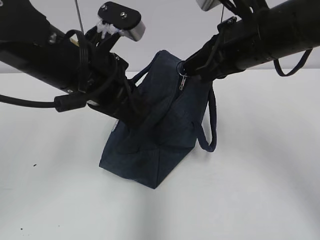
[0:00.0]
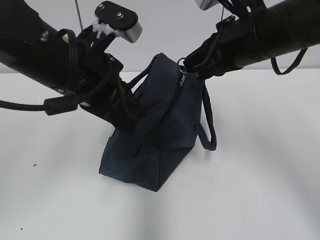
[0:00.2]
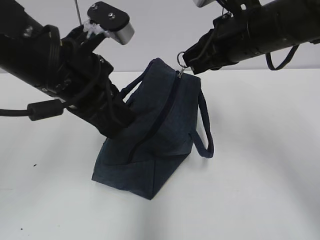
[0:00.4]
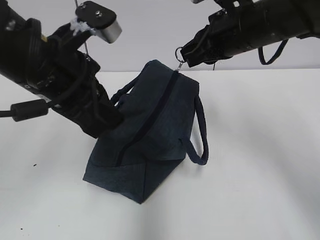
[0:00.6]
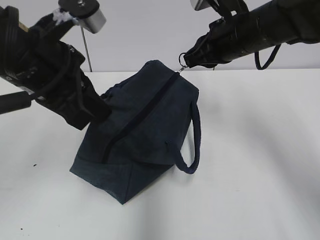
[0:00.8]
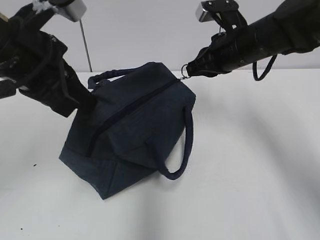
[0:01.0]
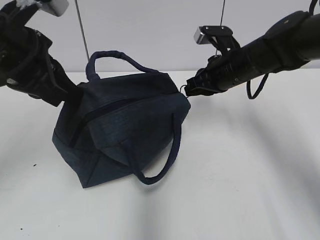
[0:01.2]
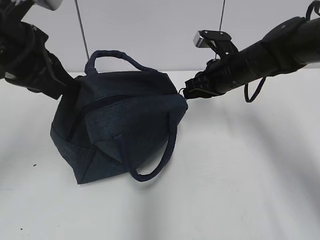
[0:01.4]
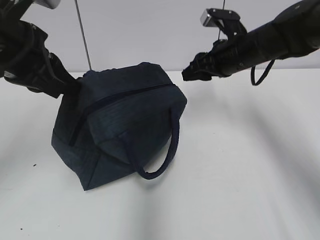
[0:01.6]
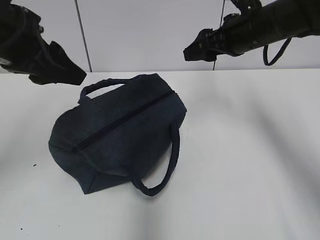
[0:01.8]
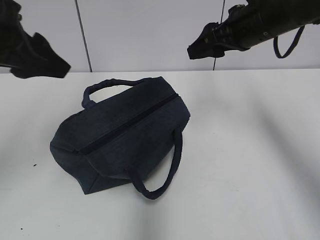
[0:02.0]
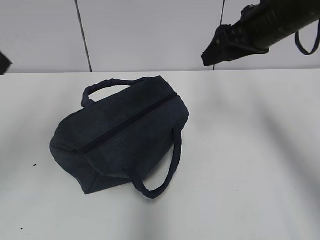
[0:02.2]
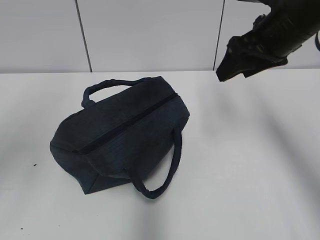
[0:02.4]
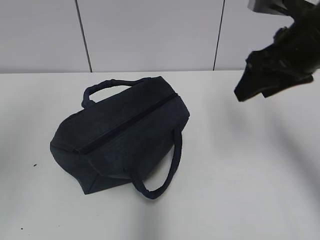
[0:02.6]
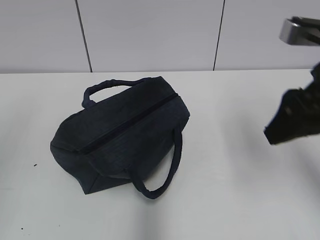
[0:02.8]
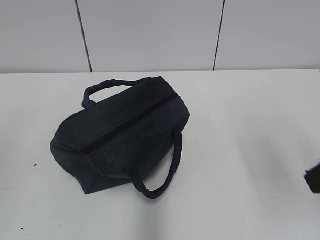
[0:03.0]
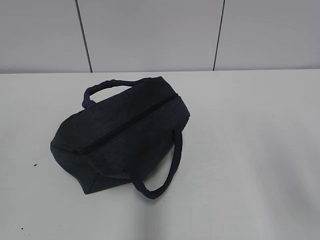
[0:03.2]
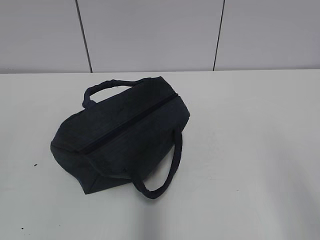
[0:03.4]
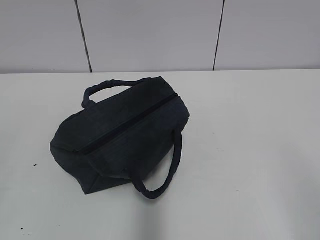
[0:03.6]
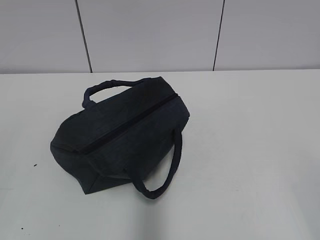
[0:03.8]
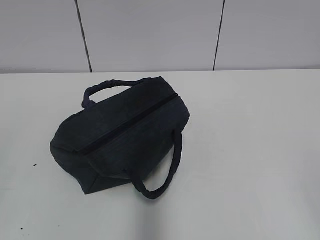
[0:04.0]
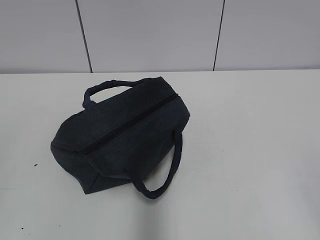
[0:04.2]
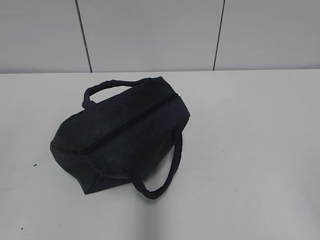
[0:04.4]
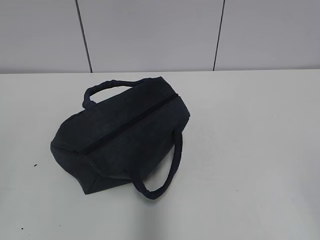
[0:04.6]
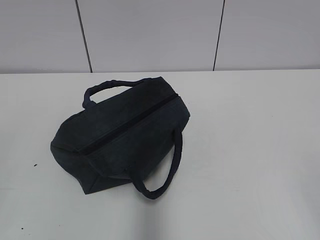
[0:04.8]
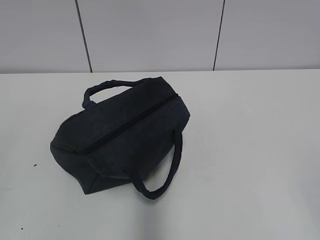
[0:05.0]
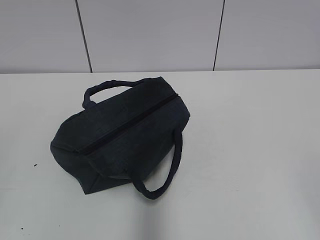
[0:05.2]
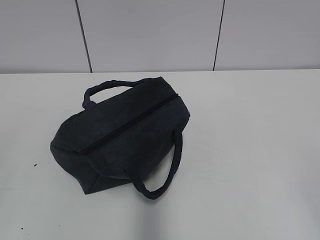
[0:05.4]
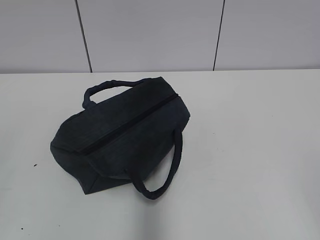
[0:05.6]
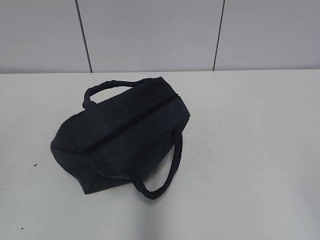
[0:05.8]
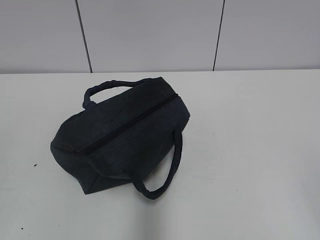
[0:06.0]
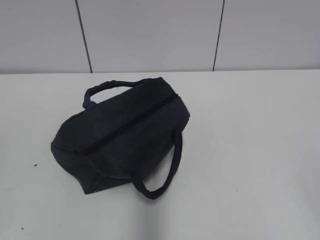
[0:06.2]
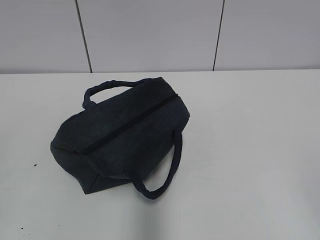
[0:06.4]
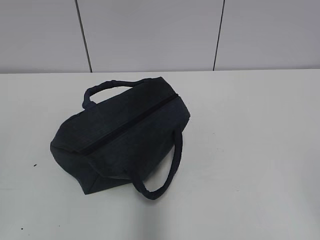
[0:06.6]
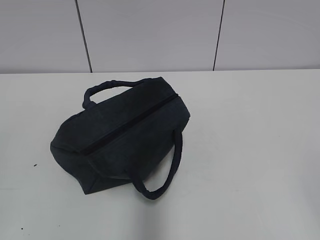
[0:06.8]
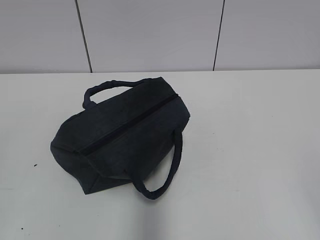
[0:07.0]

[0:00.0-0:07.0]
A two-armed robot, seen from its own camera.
0:00.0 to 0:01.4: The right gripper travels downward and forward by some 15 cm; the left gripper shifts approximately 10 cm to the left.
0:01.4 to 0:02.8: The right gripper goes some 20 cm backward and upward, and opens up. Meanwhile the left gripper goes approximately 20 cm backward and to the left, and opens its fingers.
0:02.8 to 0:04.2: The right gripper heads backward, covering roughly 25 cm.
0:04.2 to 0:05.6: The two grippers keep their place.

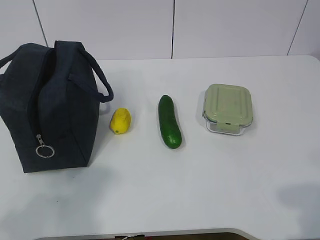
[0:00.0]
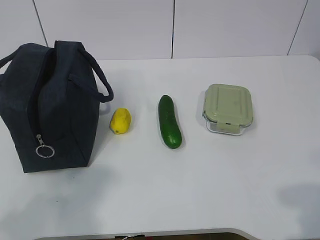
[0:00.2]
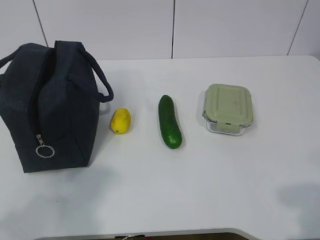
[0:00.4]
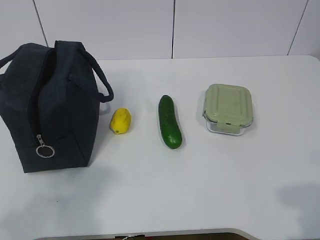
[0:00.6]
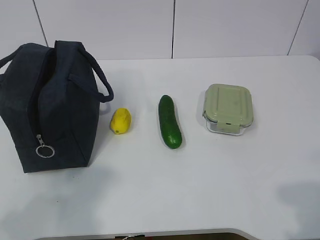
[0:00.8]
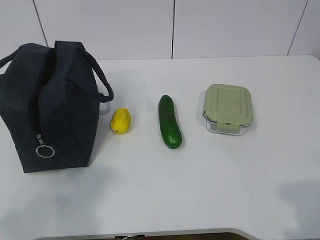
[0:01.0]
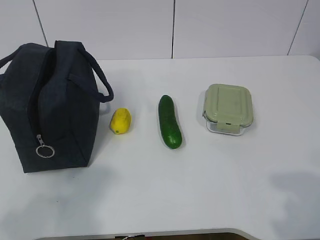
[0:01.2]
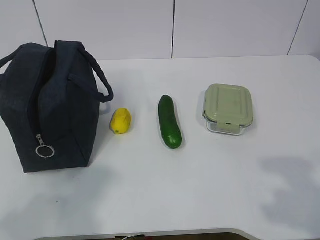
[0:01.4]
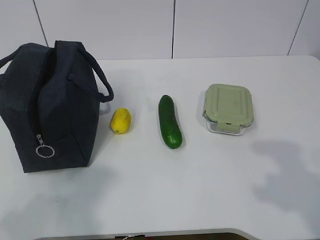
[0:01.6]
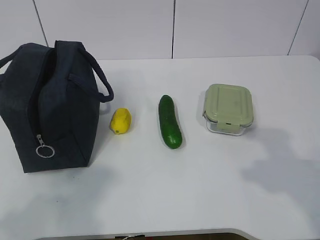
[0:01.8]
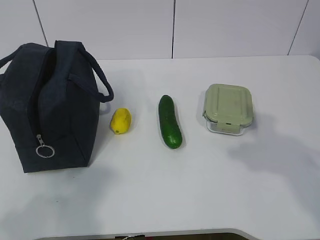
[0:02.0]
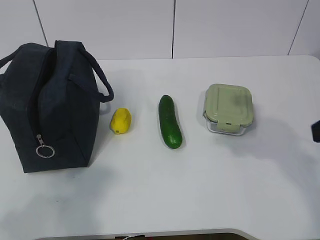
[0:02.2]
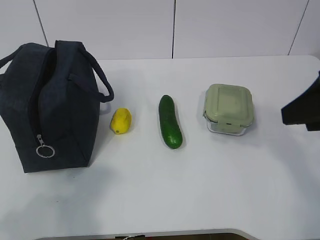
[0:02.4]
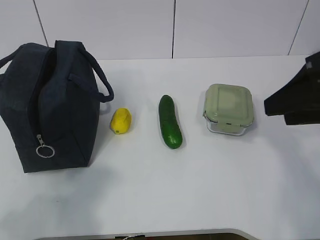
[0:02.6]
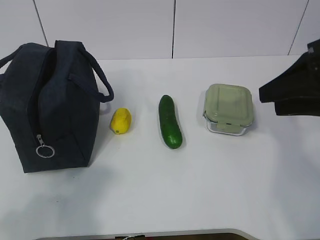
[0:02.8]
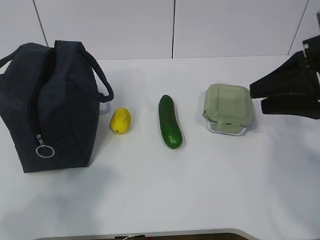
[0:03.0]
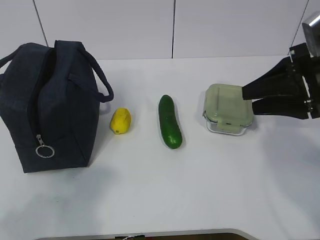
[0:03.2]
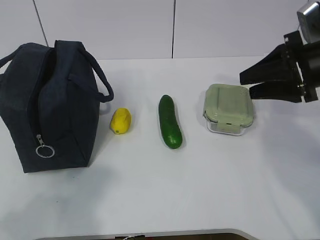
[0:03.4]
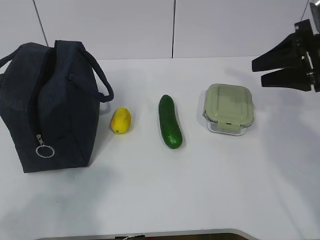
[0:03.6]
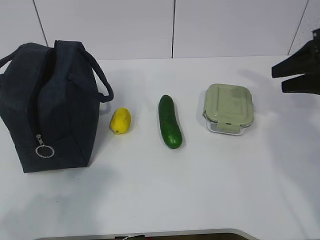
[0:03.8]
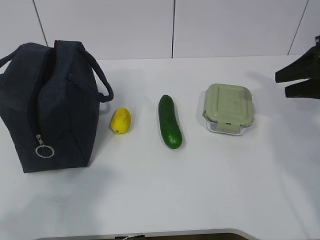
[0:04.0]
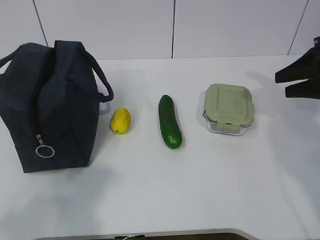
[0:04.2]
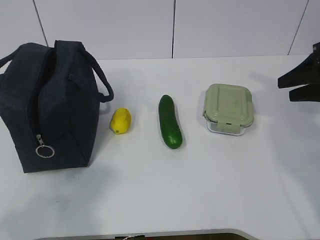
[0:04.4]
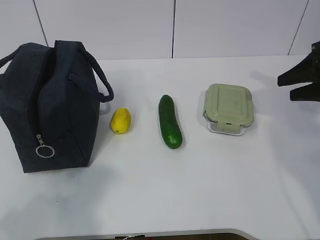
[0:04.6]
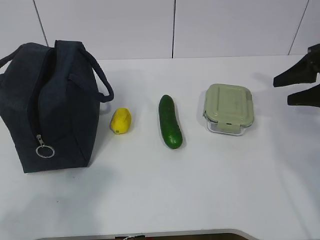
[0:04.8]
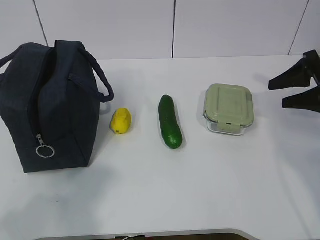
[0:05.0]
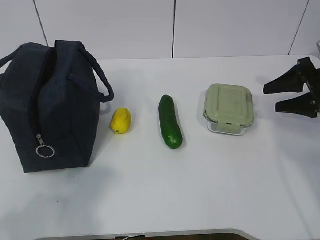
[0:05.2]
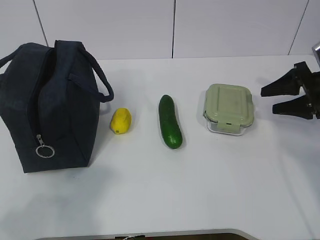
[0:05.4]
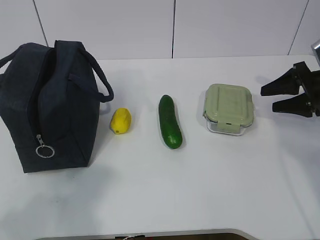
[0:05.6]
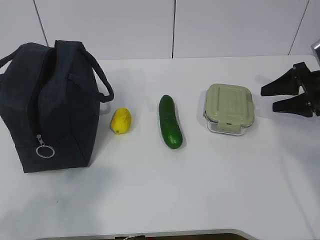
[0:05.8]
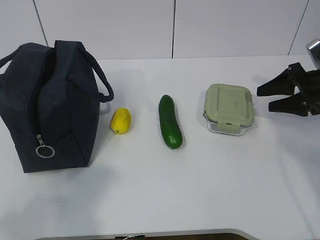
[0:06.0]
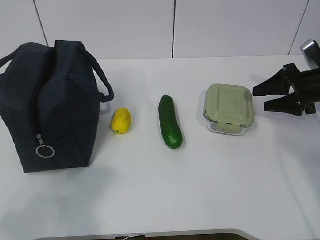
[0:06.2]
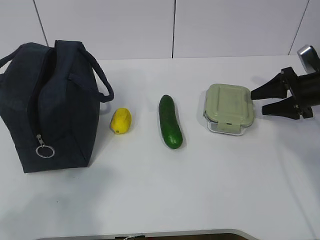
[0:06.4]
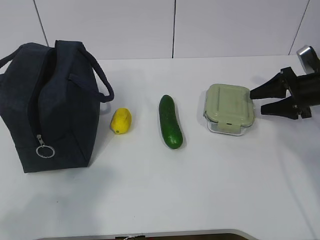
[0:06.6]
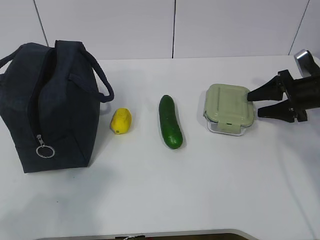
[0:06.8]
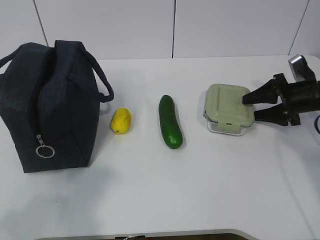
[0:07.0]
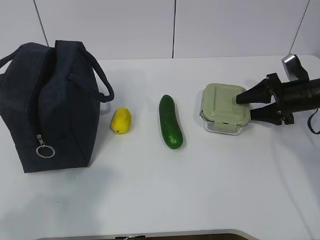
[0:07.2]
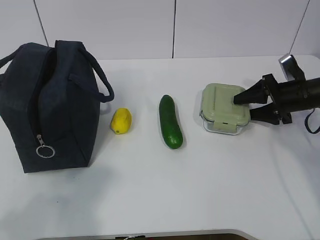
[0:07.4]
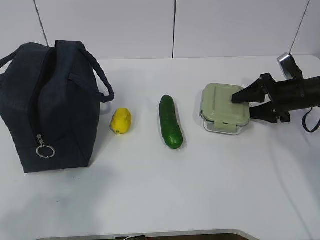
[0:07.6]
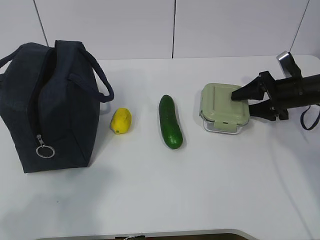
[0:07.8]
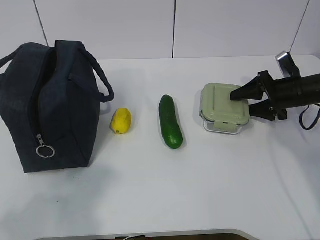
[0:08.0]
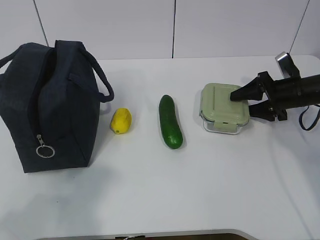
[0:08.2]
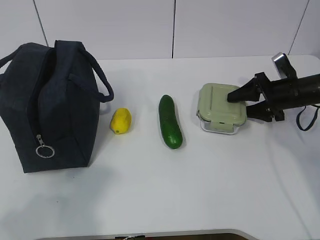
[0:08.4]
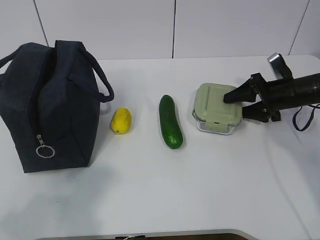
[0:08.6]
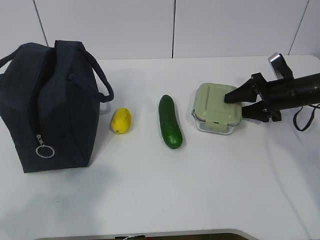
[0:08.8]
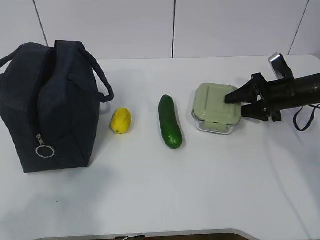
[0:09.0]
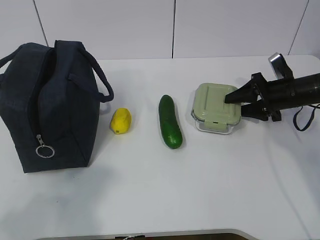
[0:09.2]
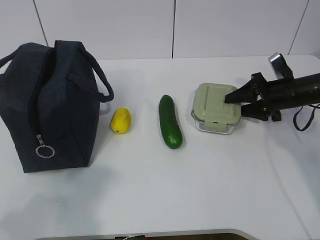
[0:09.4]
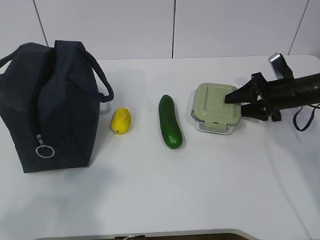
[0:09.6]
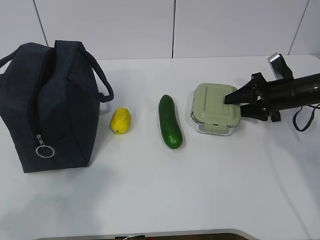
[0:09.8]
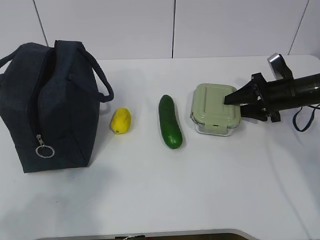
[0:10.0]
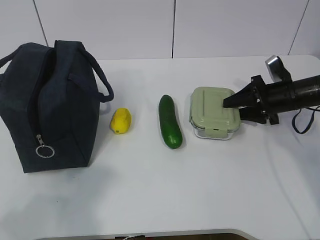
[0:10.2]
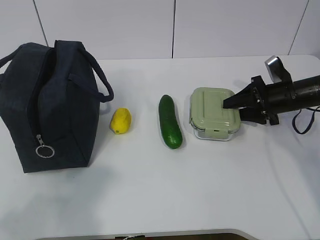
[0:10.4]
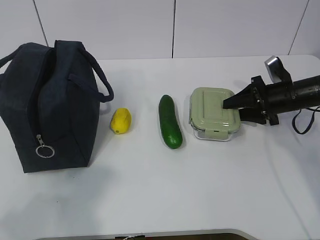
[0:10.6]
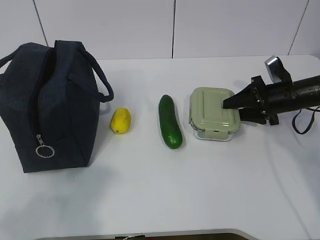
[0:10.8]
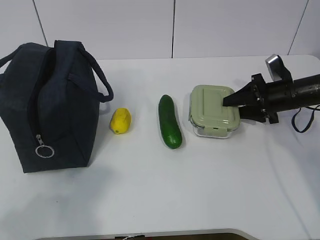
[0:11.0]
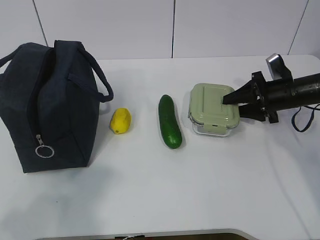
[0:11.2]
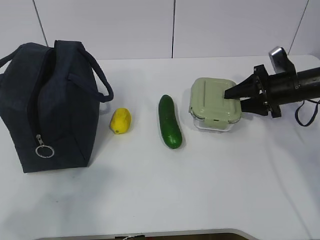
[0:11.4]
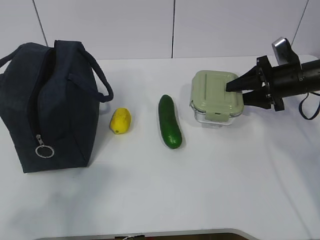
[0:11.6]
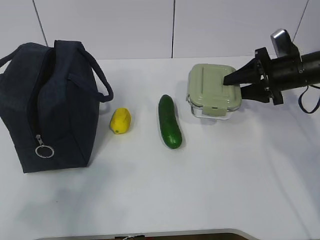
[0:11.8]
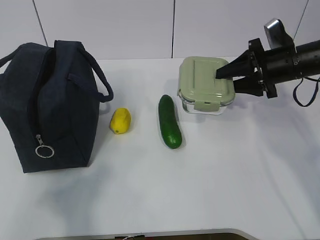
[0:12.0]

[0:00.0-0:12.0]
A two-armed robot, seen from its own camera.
Step, 0:00.0 to 0:08.2: Grab the lunch box with your right hand.
0:01.6 to 0:03.0: The right gripper goes roughly 20 cm forward.
0:03.0 to 0:04.4: The right gripper goes approximately 10 cm to the right and forward.
0:04.4 to 0:06.0: The right gripper shifts about 5 cm downward.
0:06.0 to 0:07.6: The right gripper ends up approximately 5 cm from where it was.
0:07.6 to 0:10.4: There are only small adjustments of the grippers.
0:10.4 to 0:12.0: The right gripper moves upward, about 10 cm.

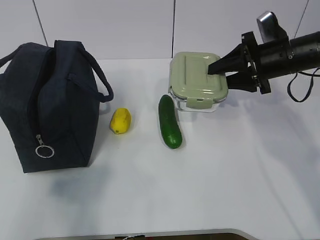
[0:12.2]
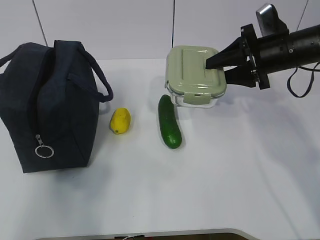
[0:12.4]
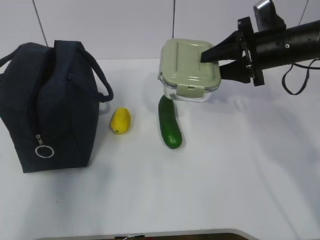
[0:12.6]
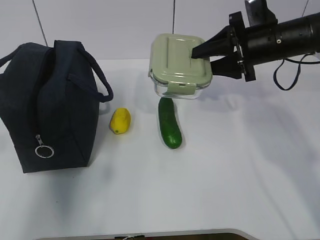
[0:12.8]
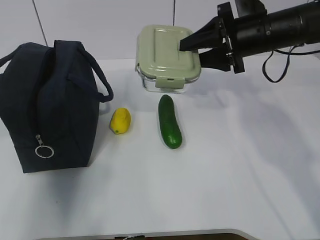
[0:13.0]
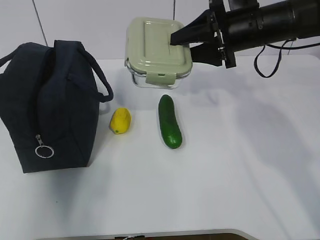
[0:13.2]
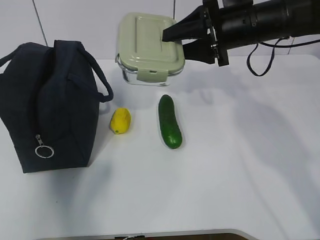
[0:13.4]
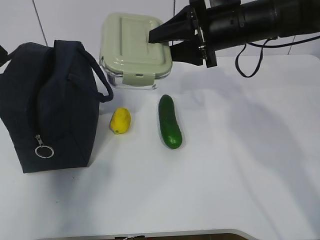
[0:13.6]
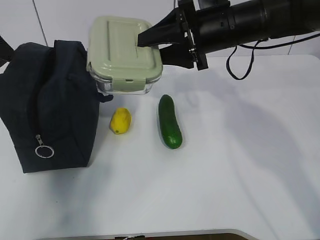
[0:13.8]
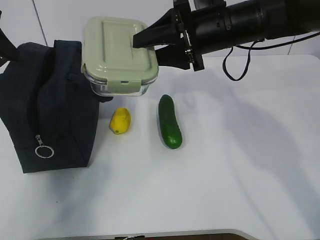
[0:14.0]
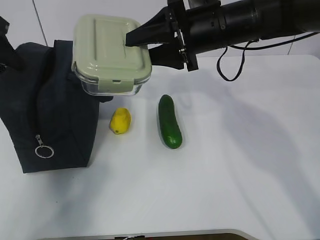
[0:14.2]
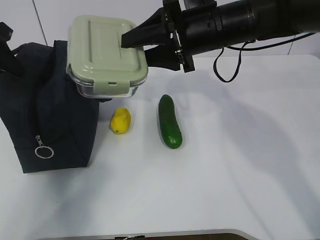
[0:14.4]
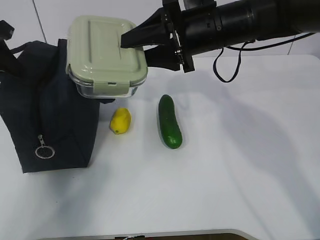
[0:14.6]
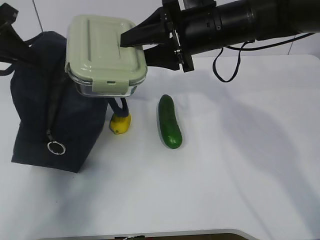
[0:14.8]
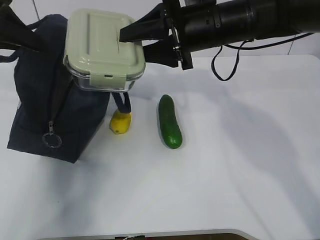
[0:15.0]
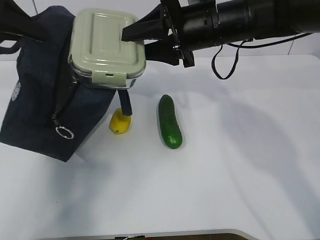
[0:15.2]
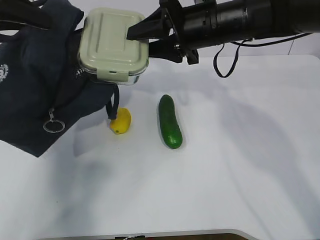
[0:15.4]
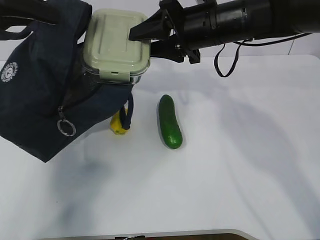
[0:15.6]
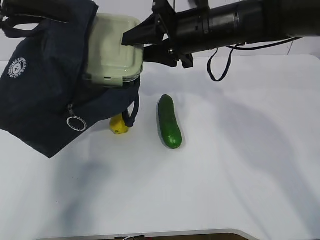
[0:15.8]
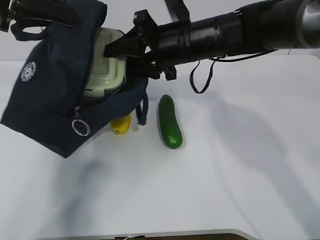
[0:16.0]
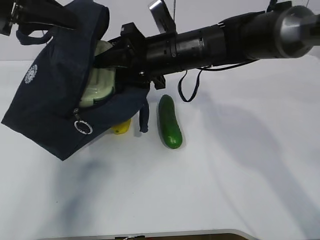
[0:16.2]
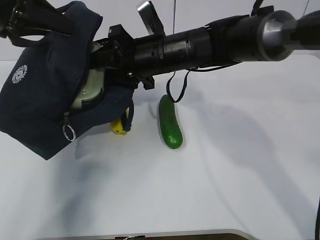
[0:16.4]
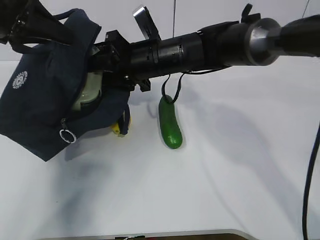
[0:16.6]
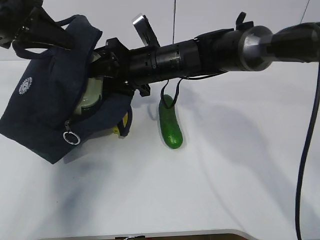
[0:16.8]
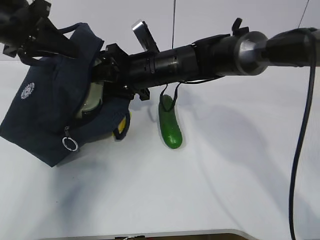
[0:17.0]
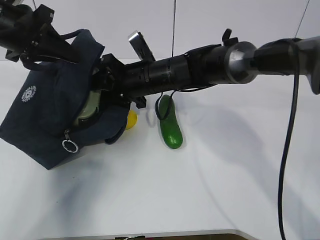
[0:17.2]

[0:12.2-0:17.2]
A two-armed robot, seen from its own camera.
Step, 0:12.6 to 0:15.0: Place it into the bag with your right hand.
0:12.2 to 0:13.8: The right gripper travels to the left and upward by roughly 15 cm; the left gripper goes about 30 cm forward.
0:13.8 to 0:15.6: The left gripper moves about 5 cm, and closes up.
0:15.6 to 0:17.2: The left gripper is displaced downward by approximately 5 cm, while the right gripper travels downward and to the left by roughly 15 cm.
